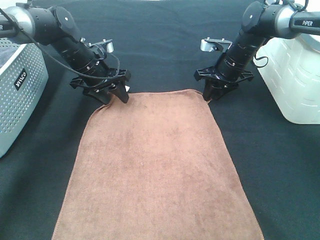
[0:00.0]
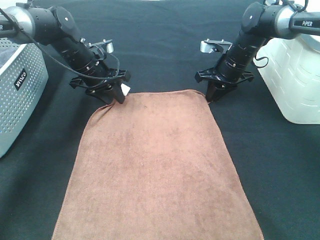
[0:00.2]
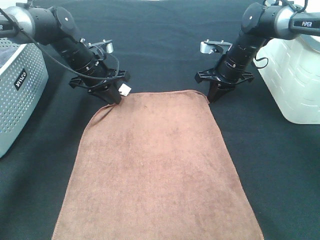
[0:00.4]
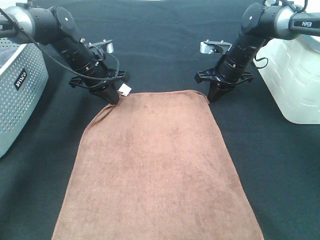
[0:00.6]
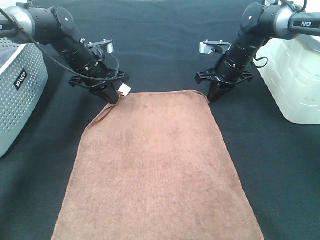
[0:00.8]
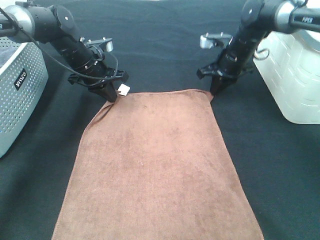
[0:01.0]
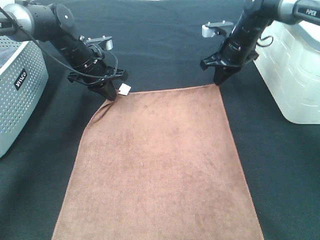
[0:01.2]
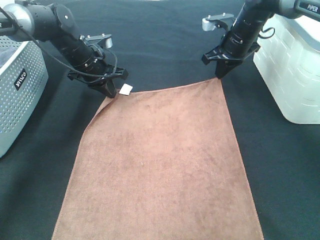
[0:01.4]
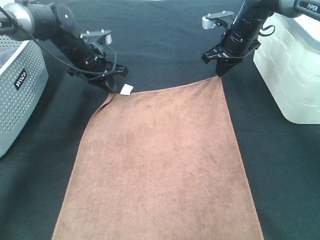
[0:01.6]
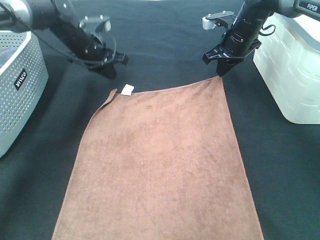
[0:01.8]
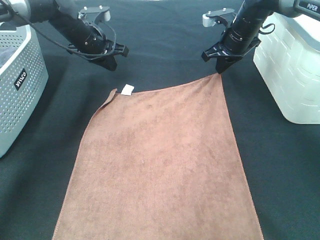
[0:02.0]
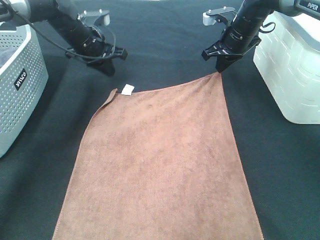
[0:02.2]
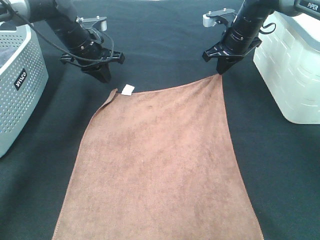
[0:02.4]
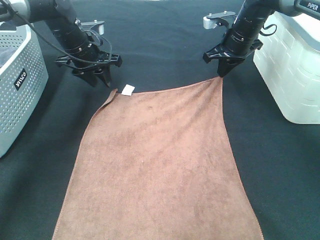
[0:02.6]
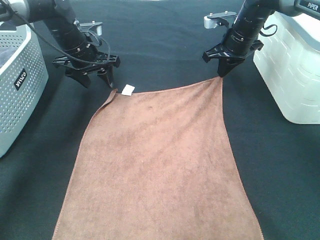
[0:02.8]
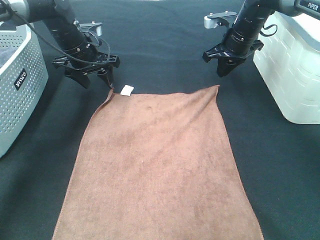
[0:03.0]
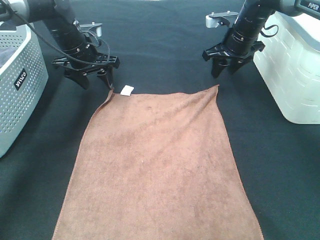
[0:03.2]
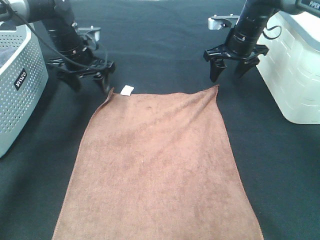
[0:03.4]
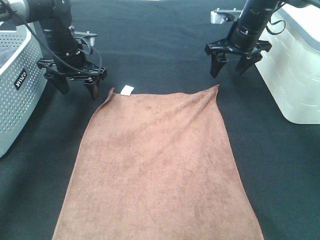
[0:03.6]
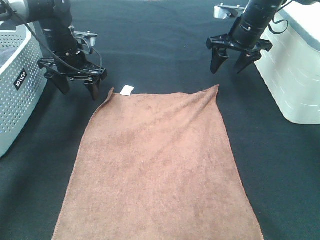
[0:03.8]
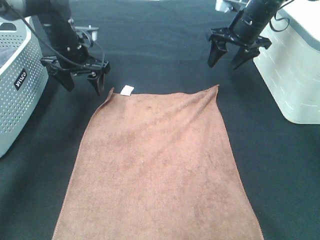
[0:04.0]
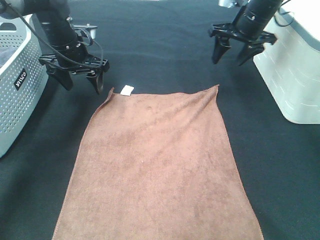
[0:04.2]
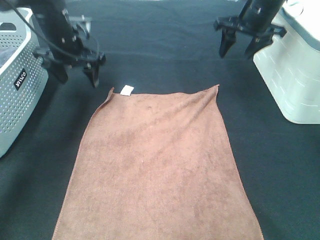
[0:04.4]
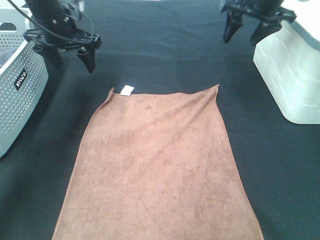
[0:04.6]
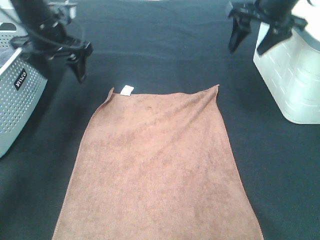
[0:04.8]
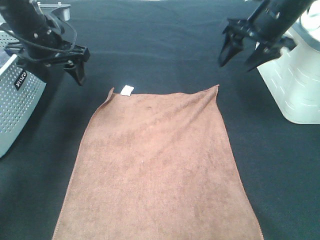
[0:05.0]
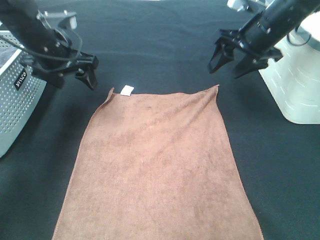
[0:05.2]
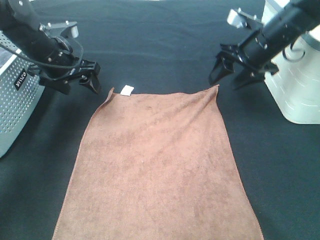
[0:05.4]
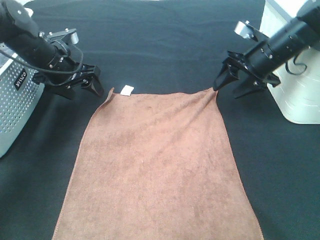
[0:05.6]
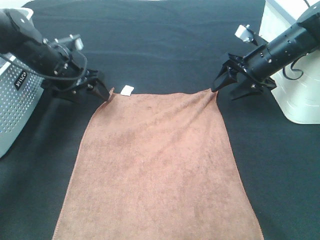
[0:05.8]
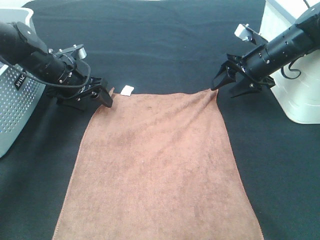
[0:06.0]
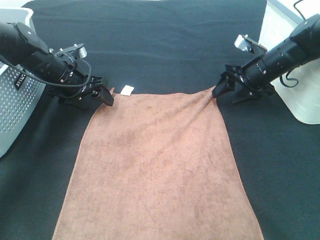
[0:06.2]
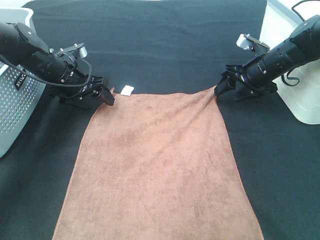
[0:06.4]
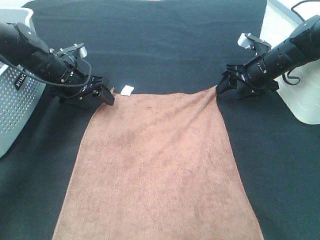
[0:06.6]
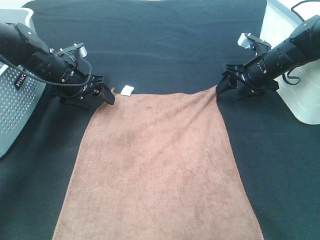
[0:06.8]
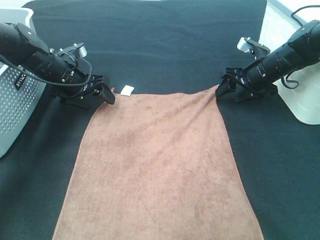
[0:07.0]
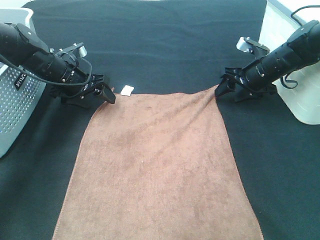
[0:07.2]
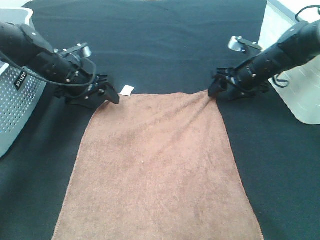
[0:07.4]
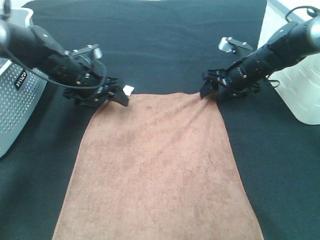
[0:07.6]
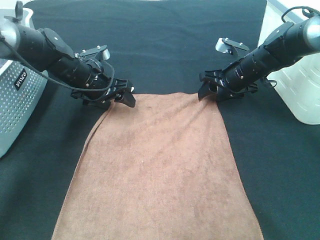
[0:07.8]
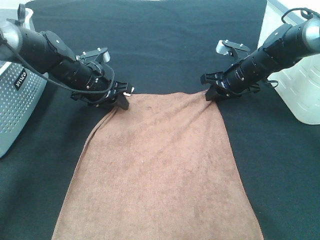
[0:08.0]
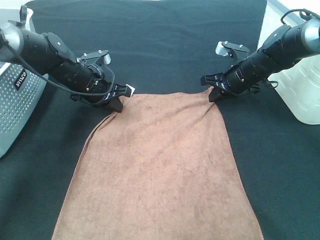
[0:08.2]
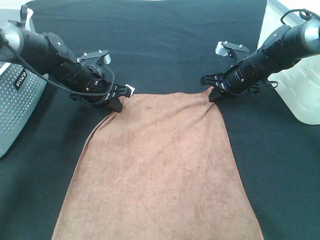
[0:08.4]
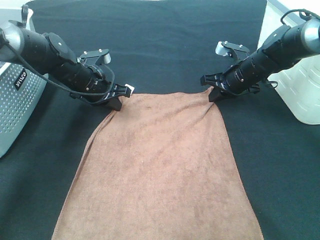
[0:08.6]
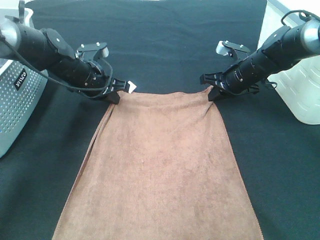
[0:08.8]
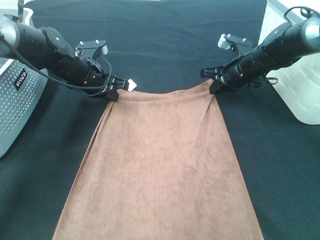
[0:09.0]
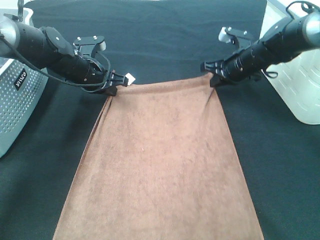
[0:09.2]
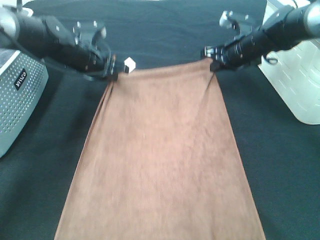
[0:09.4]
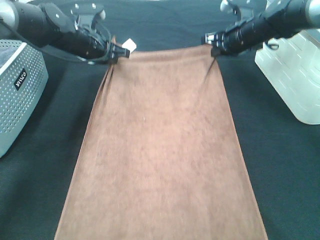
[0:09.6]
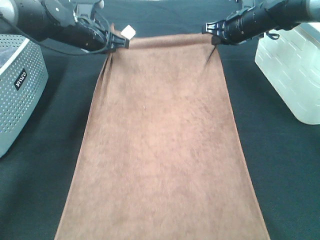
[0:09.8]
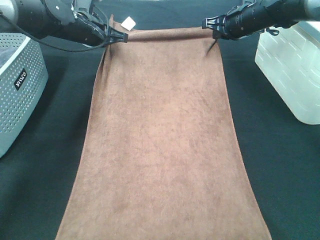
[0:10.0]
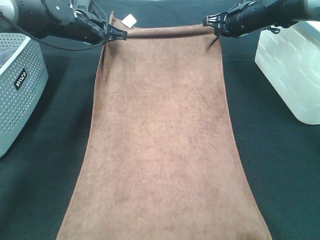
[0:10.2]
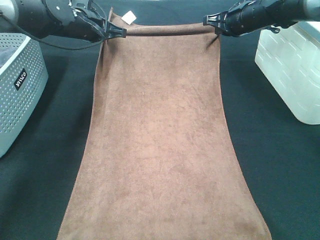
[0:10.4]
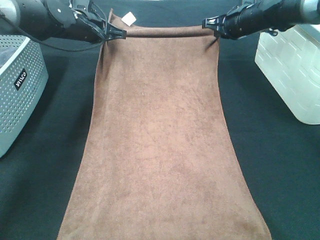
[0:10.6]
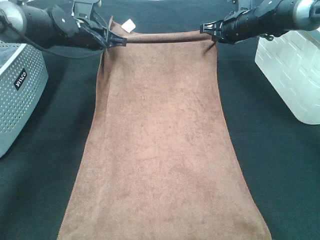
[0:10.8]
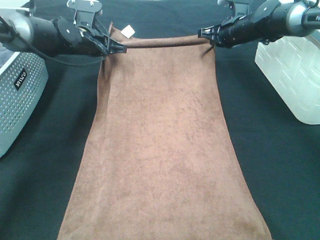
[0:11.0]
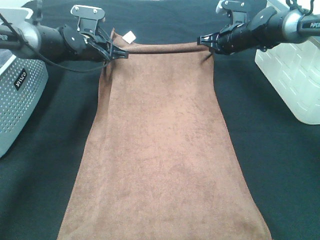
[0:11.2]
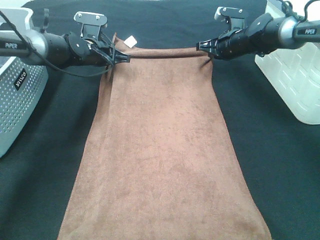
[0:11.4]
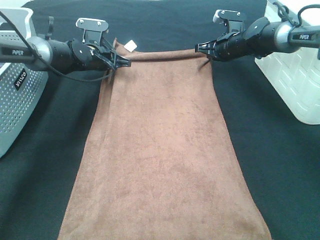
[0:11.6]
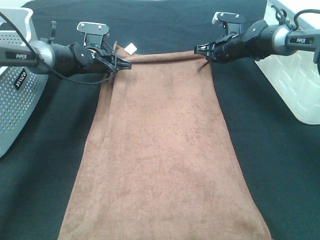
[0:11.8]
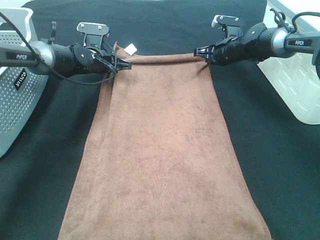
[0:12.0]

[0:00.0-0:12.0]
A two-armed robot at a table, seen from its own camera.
Task of the whole recording: Remove the towel and place it.
Step, 0:00.0 to 0:05.0: Left hand:adjust the brown towel.
Step, 0:00.0 to 0:05.0: Right hand:adjust the brown towel.
0:00.0 to 0:01.6: The left gripper closes up, while the right gripper shifts about 5 cm upward, and closes.
0:01.6 to 0:03.0: The left gripper opens.
0:03.0 to 0:04.4: The right gripper heads upward, covering some 5 cm, and opens up.
0:04.4 to 0:06.0: The right gripper is displaced downward and backward by approximately 10 cm, while the left gripper moves downward, about 10 cm.
0:06.0 to 0:07.6: The right gripper moves some 5 cm.
0:07.6 to 0:09.0: The left gripper closes its fingers. Meanwhile the right gripper closes up.
0:09.0 to 0:10.4: Both grippers move upward and forward, some 10 cm.
0:10.4 to 0:12.0: The grippers both shift downward by about 10 cm.

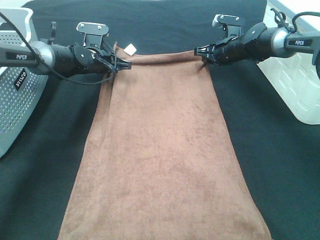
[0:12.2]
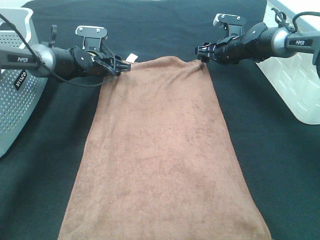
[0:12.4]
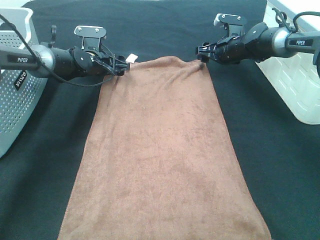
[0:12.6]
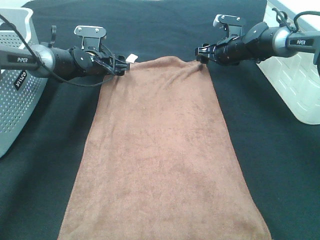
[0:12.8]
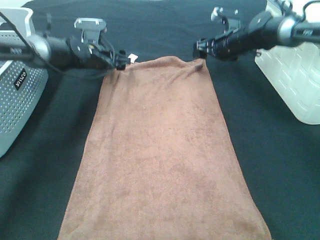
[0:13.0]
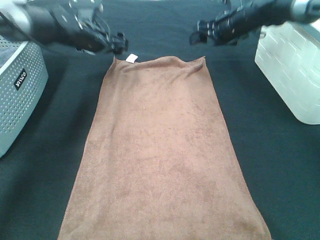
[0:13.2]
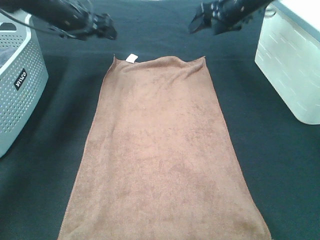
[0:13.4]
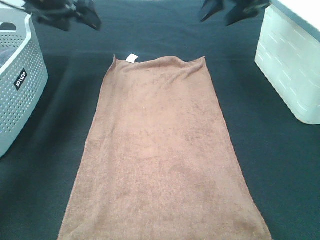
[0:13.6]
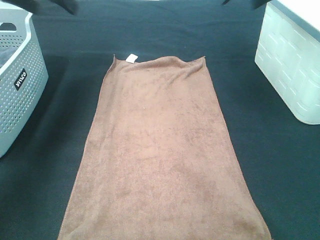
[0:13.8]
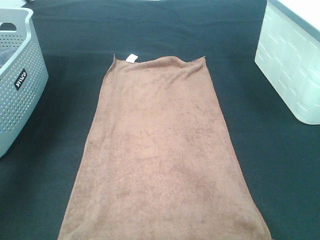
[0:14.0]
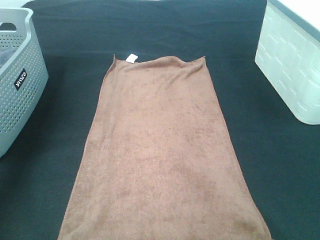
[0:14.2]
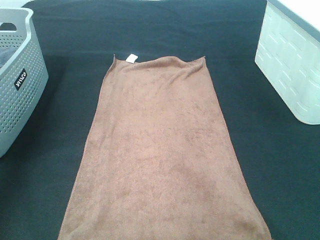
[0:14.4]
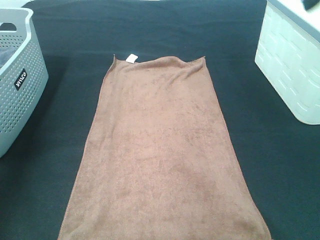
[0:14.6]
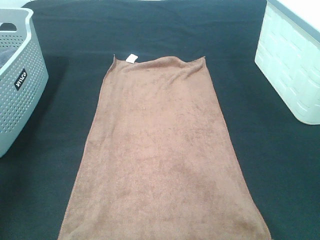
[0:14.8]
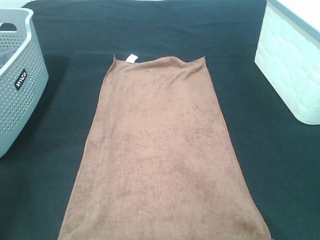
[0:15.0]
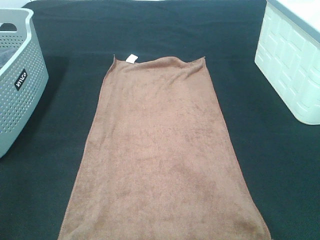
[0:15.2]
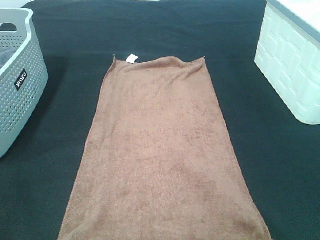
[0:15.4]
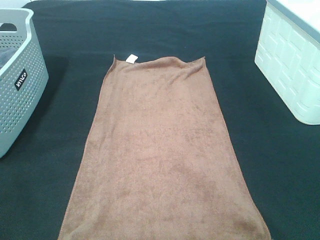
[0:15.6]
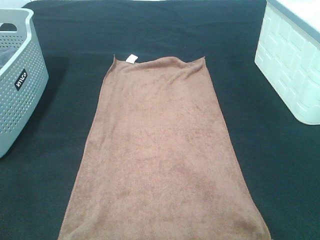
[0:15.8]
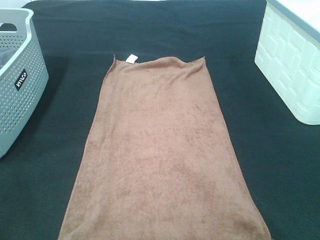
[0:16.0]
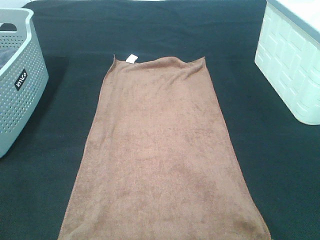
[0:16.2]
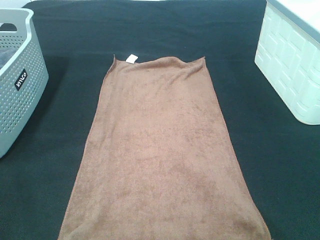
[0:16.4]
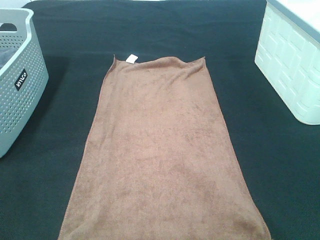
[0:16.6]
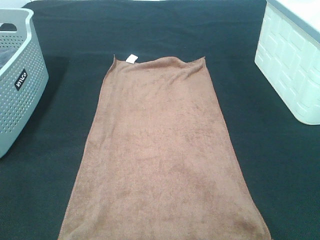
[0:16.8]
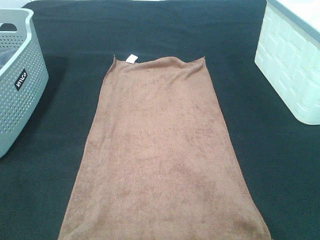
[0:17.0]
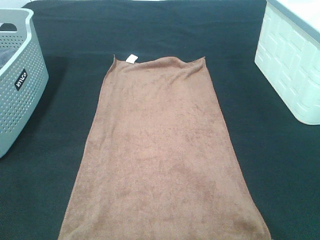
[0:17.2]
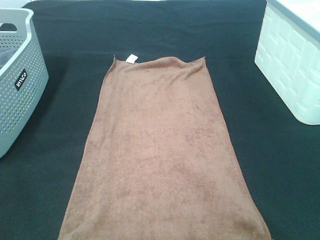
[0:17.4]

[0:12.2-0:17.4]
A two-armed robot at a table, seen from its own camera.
Task of the whole recording: Remove the towel and place it.
0:12.2 to 0:14.0: The right gripper shifts about 35 cm upward and backward, while the left gripper is displaced upward, to the left and backward by about 35 cm, and opens up.
0:14.0 to 0:15.6: Both grippers move backward, roughly 40 cm.

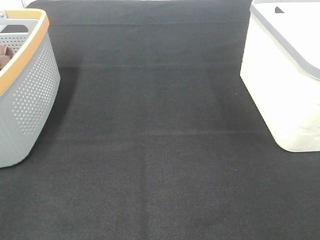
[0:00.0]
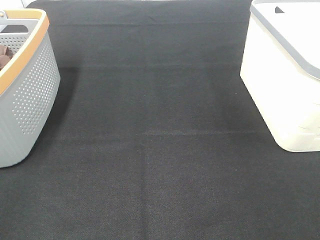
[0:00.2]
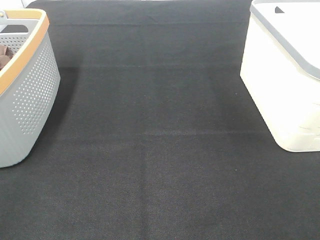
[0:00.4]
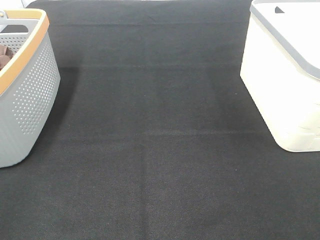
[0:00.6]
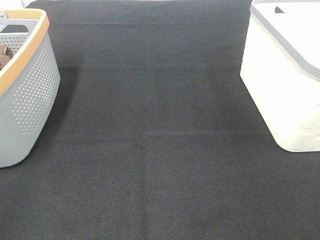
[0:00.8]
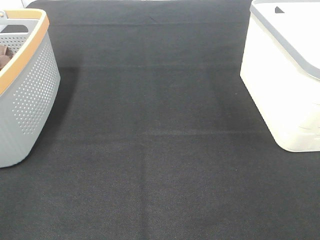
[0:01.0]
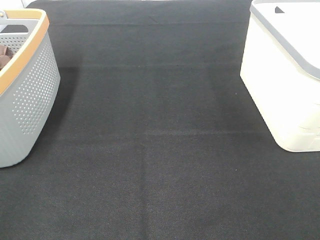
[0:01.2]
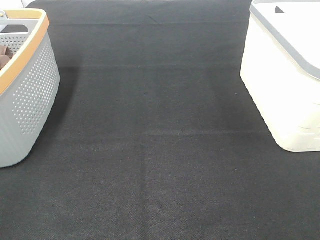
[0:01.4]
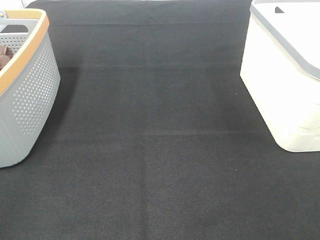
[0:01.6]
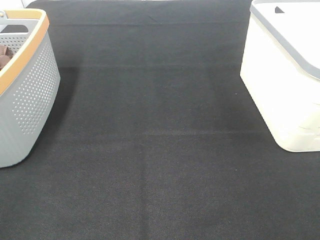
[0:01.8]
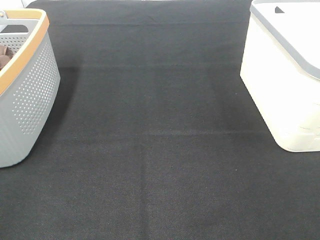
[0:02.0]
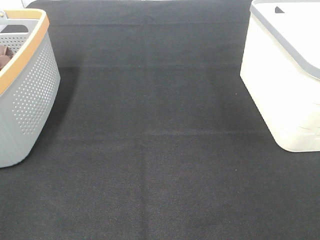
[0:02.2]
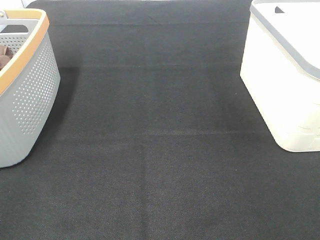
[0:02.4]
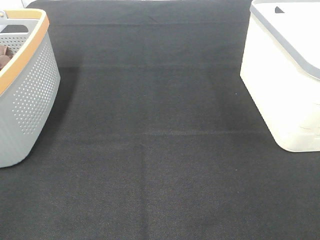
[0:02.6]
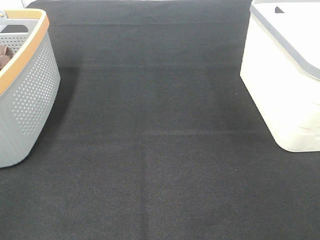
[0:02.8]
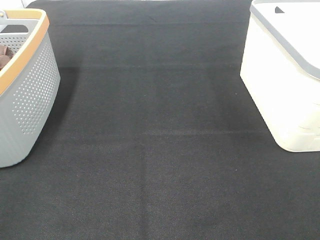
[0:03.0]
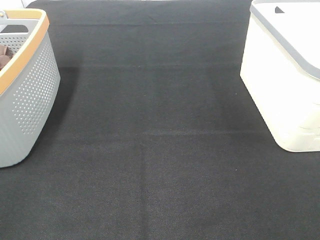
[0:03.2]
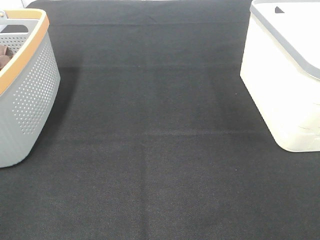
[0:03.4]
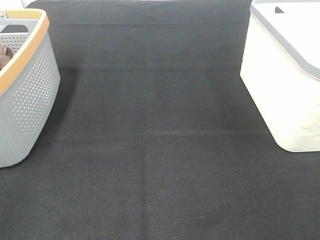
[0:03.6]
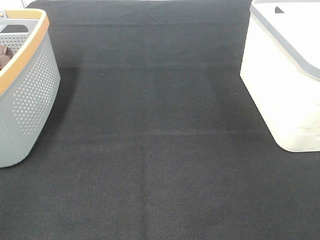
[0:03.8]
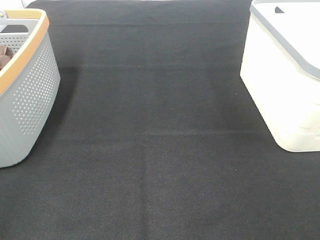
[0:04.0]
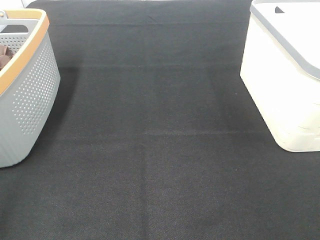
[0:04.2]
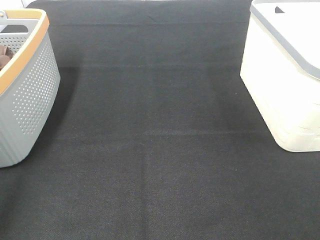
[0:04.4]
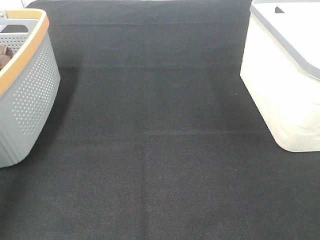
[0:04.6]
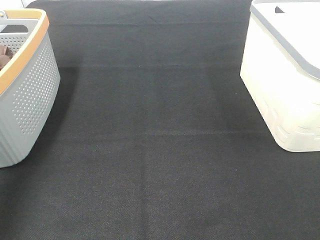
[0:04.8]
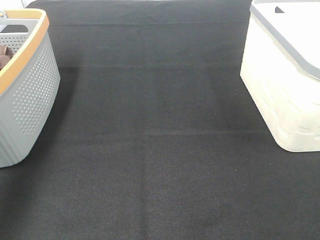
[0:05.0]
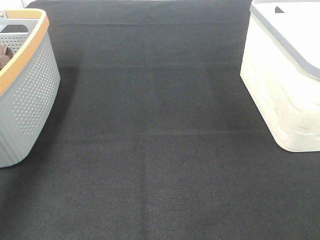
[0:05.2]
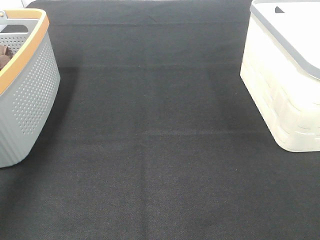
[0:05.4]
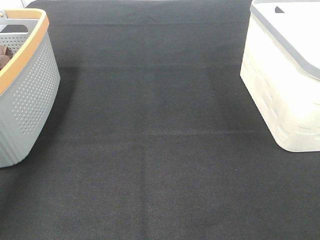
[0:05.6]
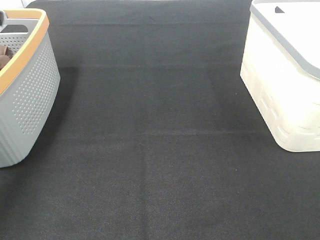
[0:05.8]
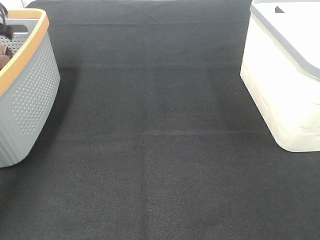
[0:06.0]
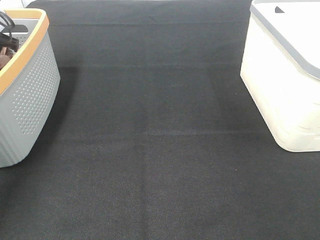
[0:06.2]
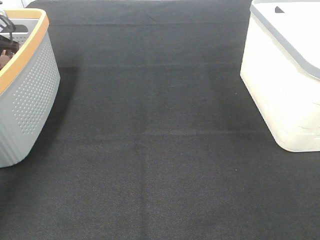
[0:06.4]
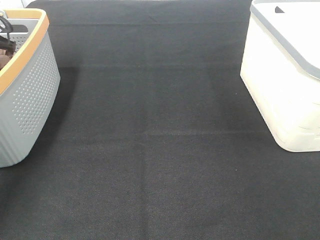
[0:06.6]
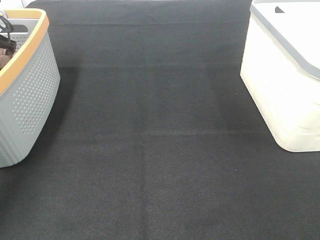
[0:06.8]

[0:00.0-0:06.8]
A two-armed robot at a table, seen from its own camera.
Task of the whole recording: Remove the towel and place it.
0:00.0 to 0:02.8: Both grippers stay about where they are.
0:04.0 to 0:05.4: The left gripper goes some 40 cm forward.
